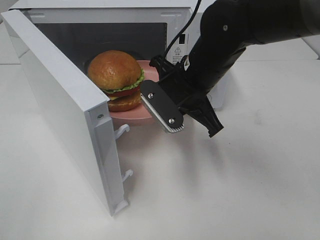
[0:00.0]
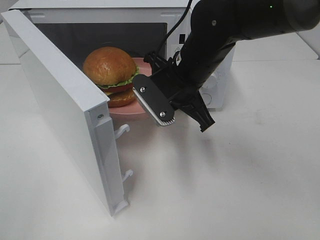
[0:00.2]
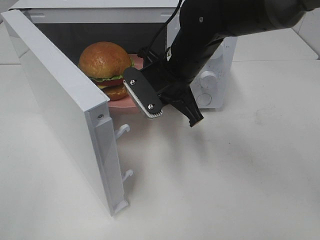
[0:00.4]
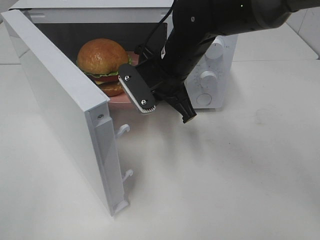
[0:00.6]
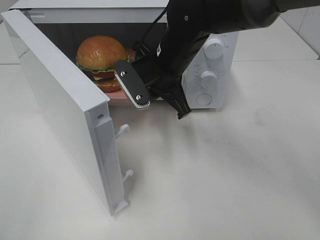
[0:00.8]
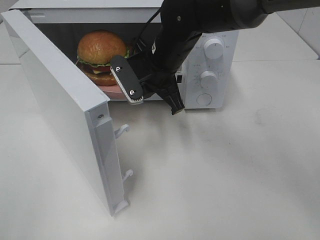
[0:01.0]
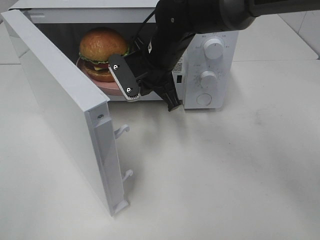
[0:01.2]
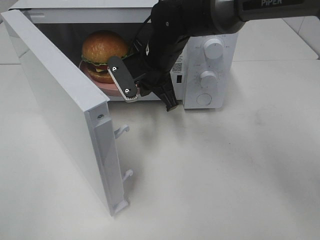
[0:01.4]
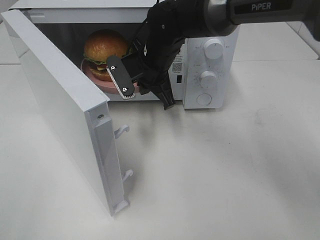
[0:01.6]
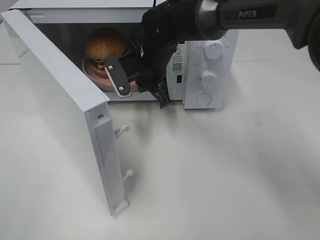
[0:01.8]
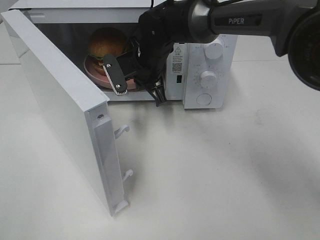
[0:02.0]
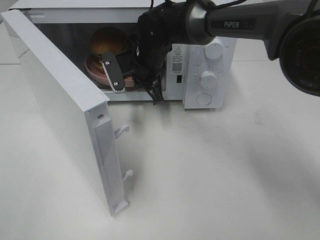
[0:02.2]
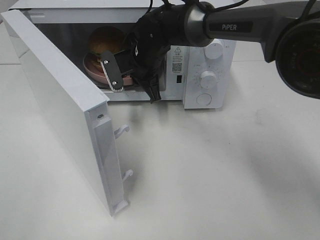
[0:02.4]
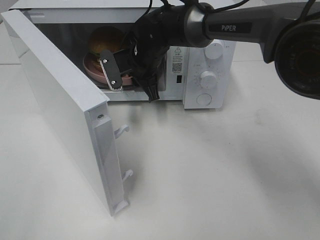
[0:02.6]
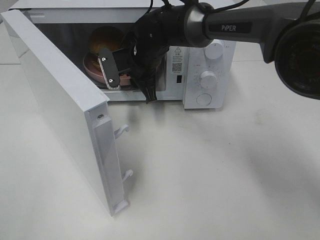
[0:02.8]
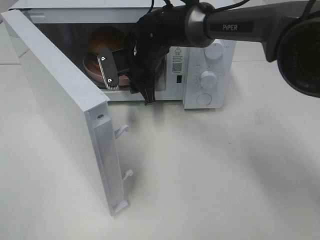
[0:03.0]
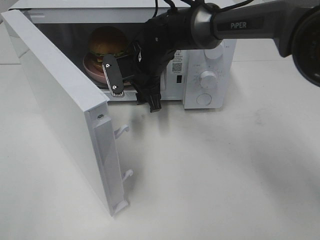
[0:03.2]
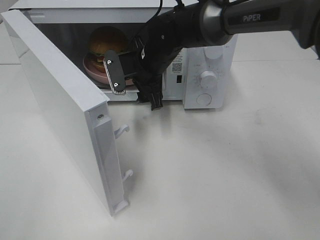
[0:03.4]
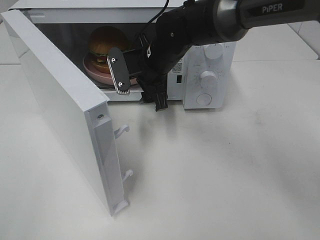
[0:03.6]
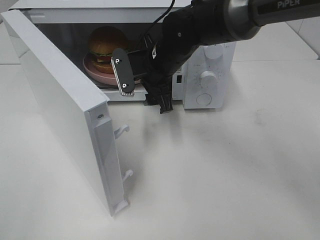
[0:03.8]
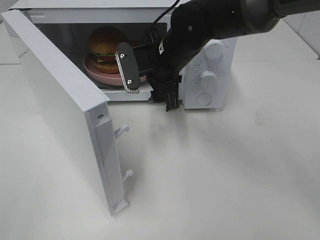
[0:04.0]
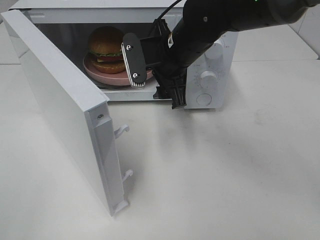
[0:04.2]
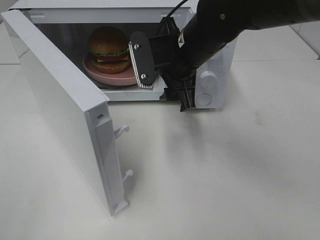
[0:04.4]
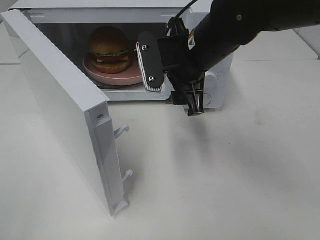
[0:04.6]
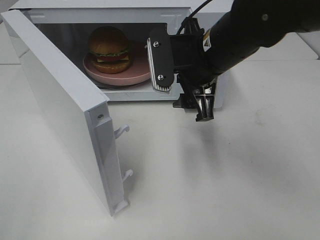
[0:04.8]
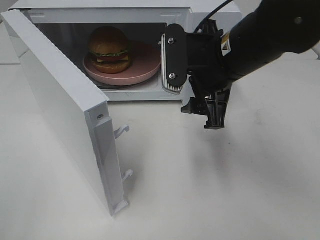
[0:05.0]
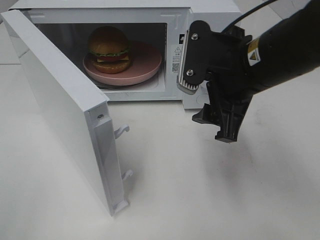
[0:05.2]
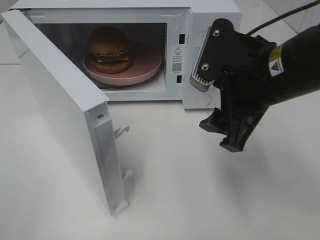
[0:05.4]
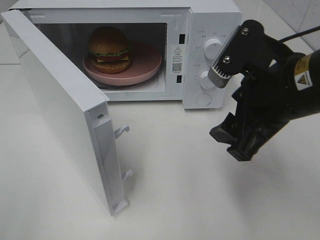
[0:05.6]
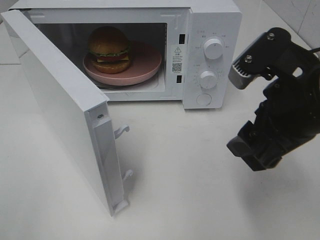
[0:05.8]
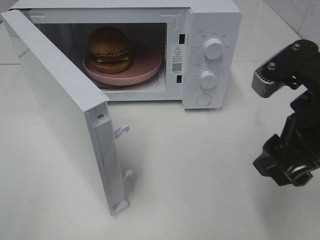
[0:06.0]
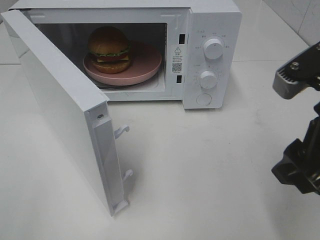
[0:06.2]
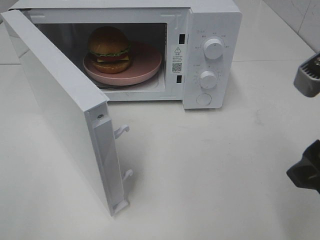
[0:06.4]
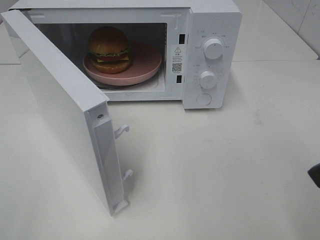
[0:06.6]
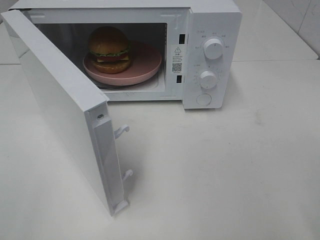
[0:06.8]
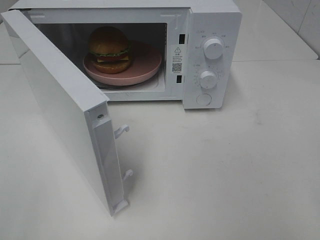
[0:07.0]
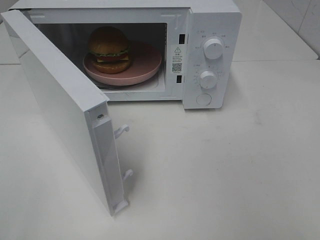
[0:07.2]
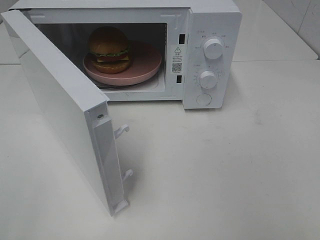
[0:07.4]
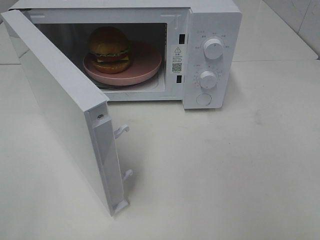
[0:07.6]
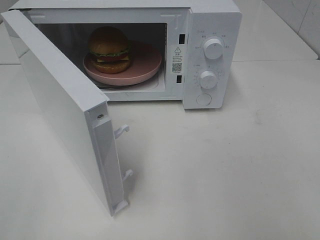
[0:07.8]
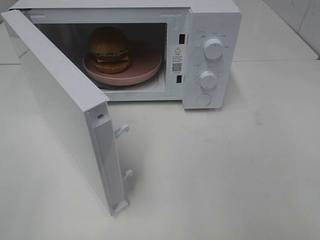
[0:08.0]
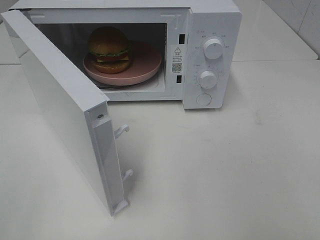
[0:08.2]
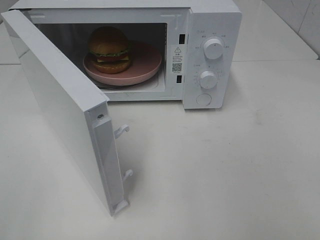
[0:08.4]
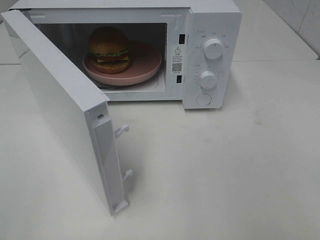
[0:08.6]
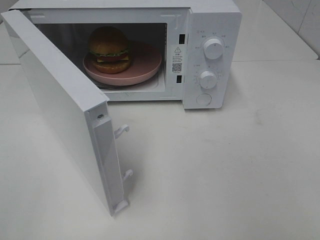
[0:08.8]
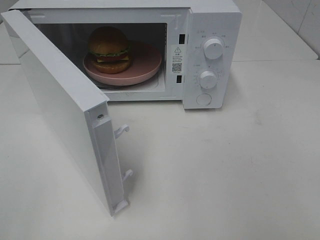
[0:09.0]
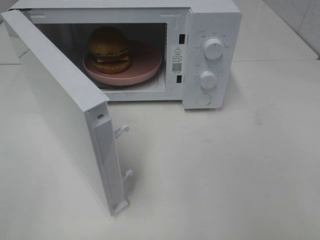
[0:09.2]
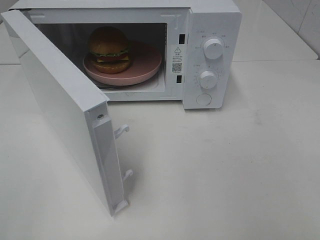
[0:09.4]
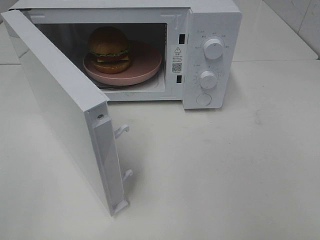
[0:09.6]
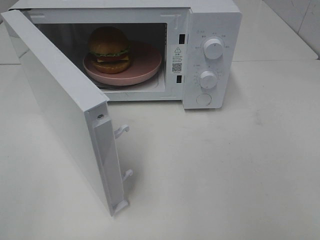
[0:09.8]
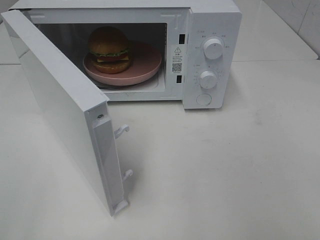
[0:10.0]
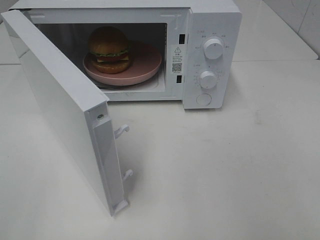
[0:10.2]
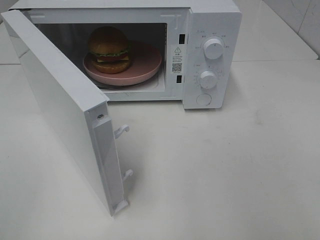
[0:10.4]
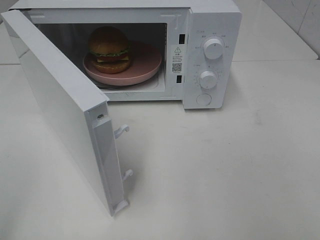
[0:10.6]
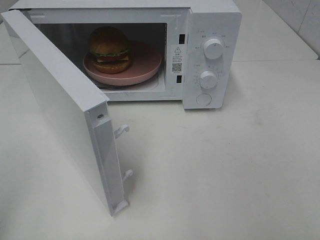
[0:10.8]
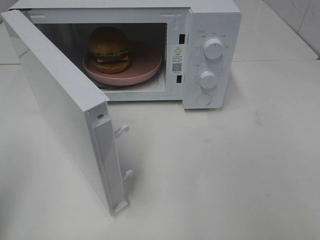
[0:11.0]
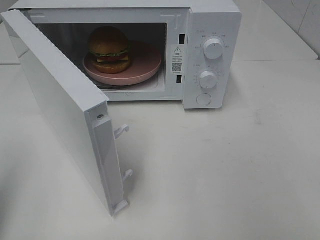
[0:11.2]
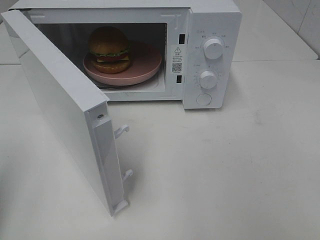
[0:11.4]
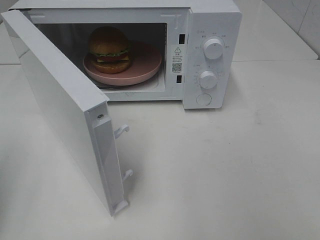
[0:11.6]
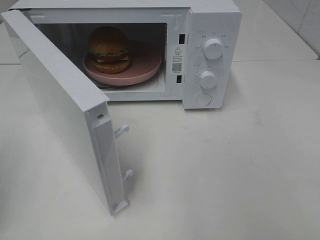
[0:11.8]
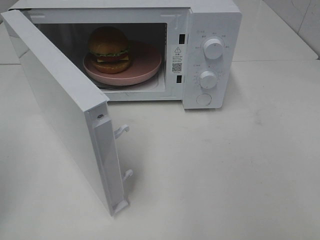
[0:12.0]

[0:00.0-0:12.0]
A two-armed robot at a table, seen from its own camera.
Task of the whole recording: Heat the burger.
Step, 0:00.0 to 0:02.6: Right hand: place the plate in the microwave.
0:00.0 to 0:01.6: The right gripper heads forward and to the left, covering about 10 cm.
0:01.6 to 0:03.0: The right gripper opens up.
0:03.0 to 0:04.4: The right gripper travels backward, to the right and upward by approximately 15 cm.
0:04.4 to 0:06.0: The right gripper moves backward and to the right, approximately 20 cm.
0:06.0 to 0:07.6: The right gripper travels backward and to the right by approximately 15 cm.

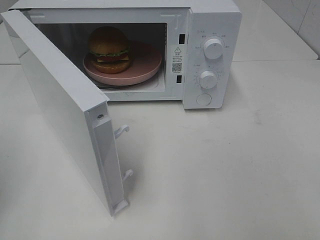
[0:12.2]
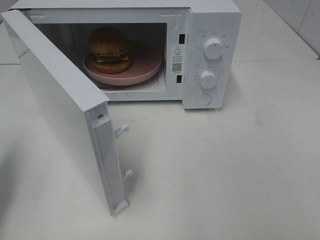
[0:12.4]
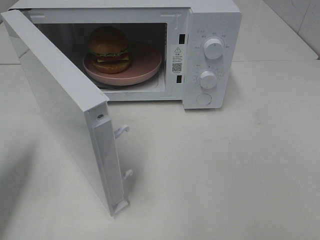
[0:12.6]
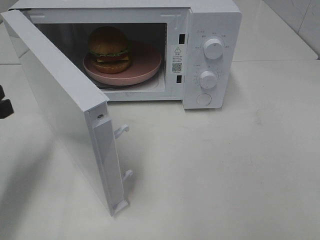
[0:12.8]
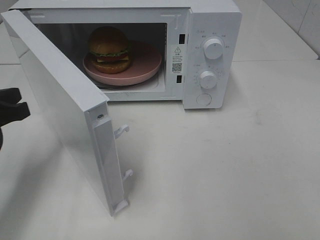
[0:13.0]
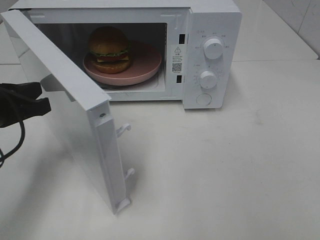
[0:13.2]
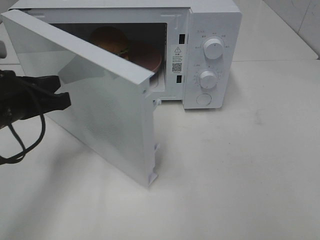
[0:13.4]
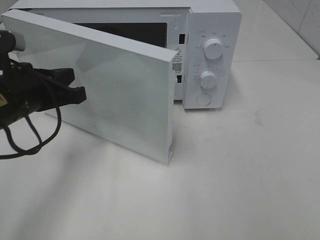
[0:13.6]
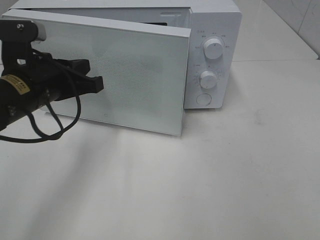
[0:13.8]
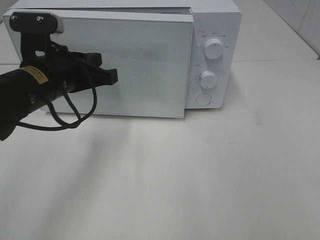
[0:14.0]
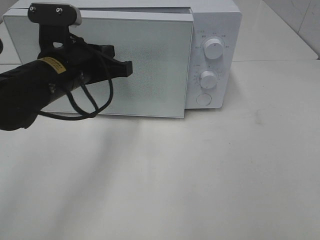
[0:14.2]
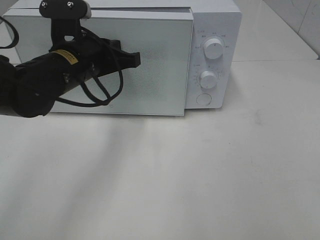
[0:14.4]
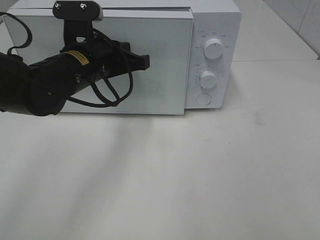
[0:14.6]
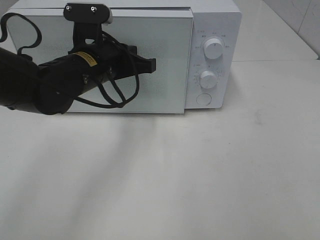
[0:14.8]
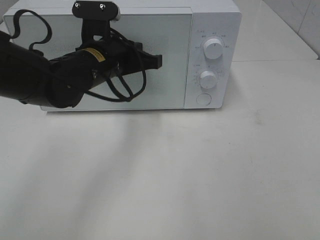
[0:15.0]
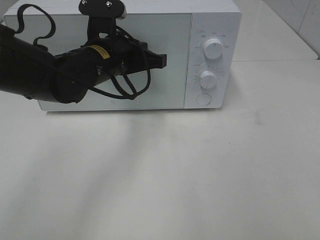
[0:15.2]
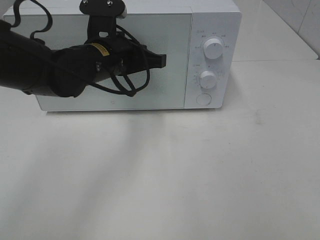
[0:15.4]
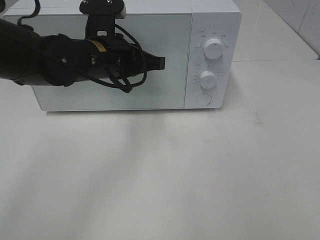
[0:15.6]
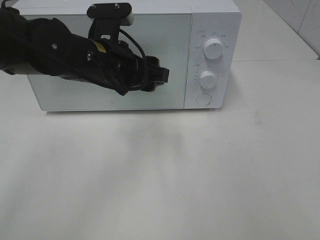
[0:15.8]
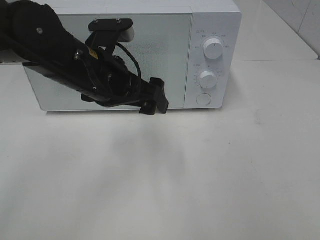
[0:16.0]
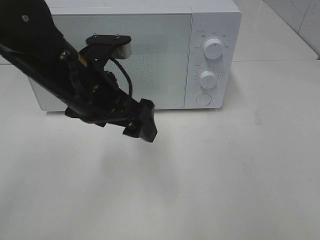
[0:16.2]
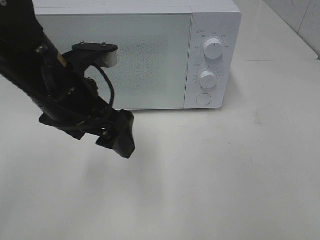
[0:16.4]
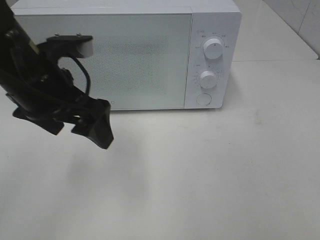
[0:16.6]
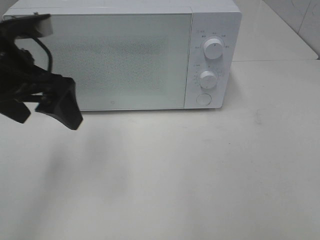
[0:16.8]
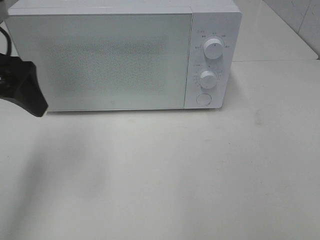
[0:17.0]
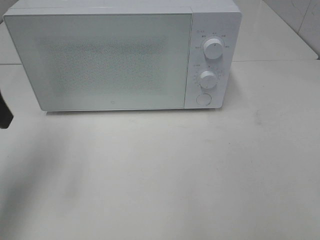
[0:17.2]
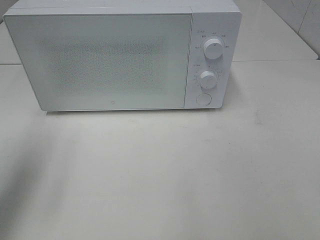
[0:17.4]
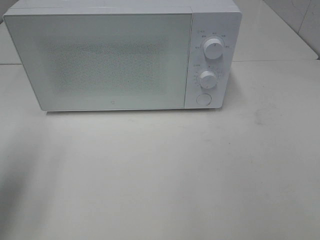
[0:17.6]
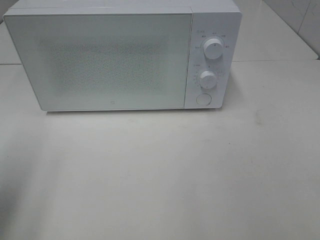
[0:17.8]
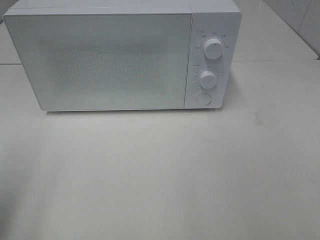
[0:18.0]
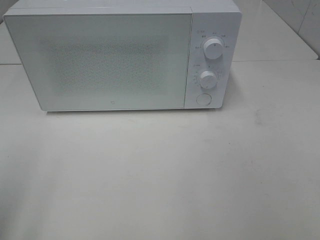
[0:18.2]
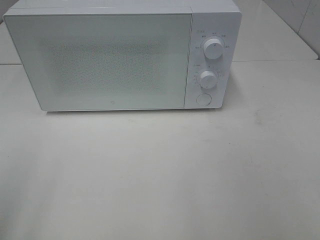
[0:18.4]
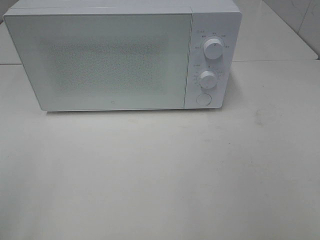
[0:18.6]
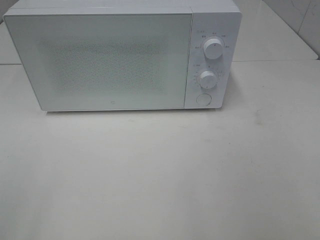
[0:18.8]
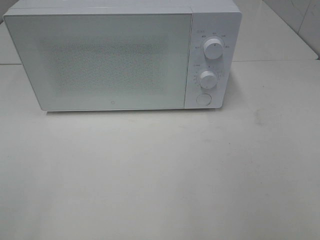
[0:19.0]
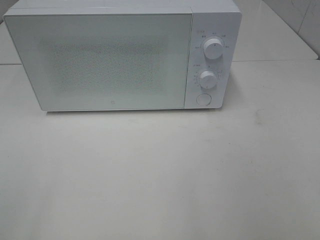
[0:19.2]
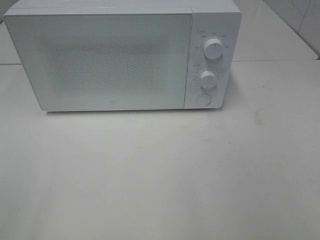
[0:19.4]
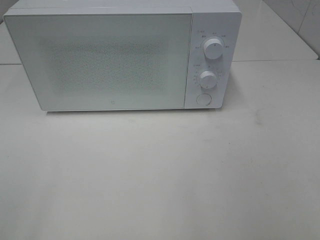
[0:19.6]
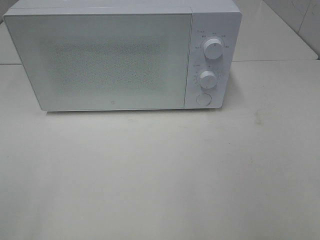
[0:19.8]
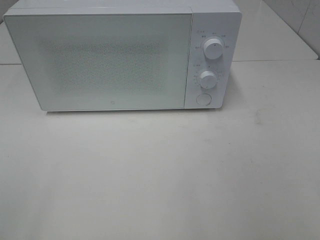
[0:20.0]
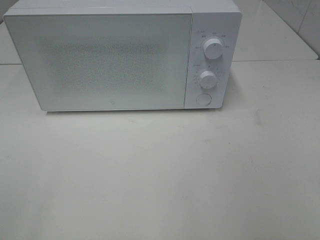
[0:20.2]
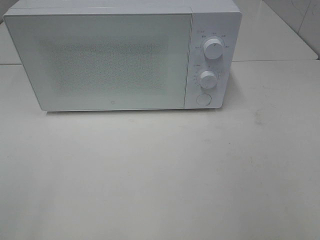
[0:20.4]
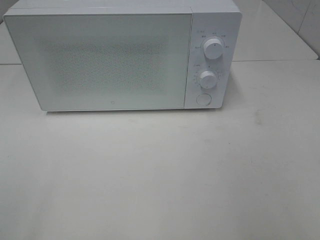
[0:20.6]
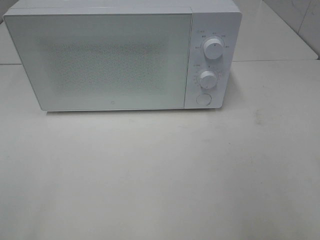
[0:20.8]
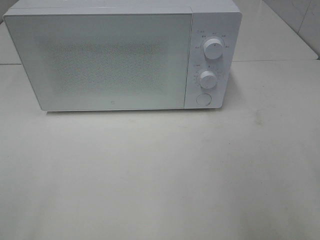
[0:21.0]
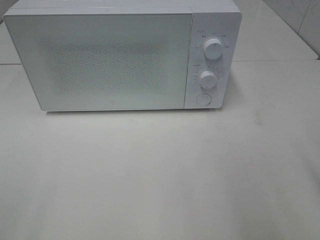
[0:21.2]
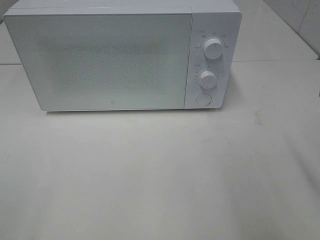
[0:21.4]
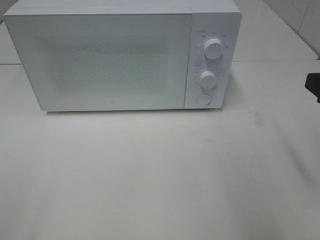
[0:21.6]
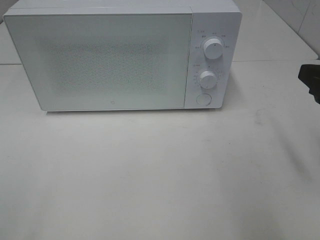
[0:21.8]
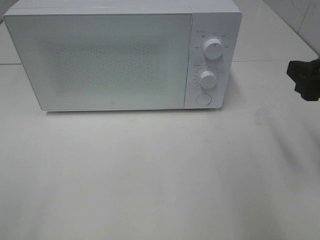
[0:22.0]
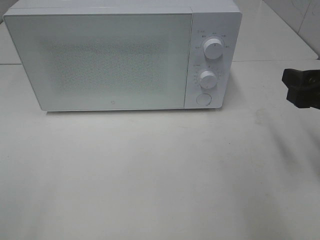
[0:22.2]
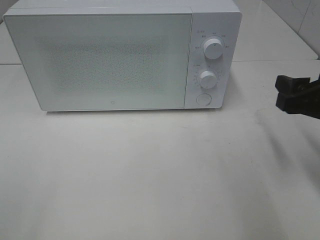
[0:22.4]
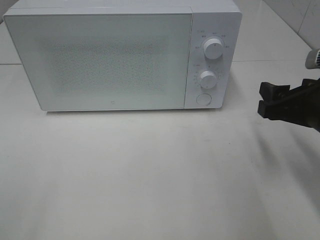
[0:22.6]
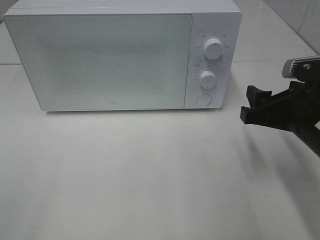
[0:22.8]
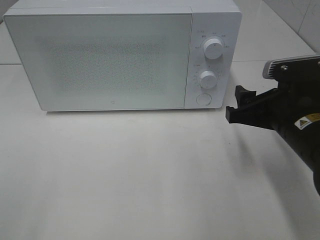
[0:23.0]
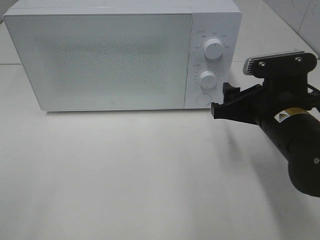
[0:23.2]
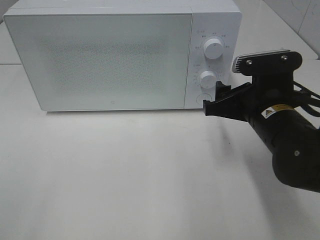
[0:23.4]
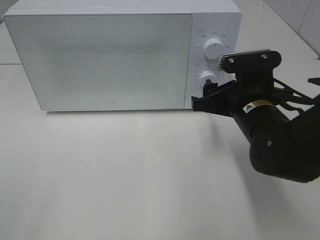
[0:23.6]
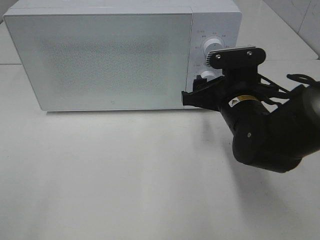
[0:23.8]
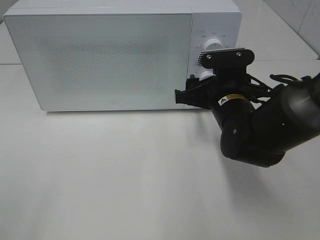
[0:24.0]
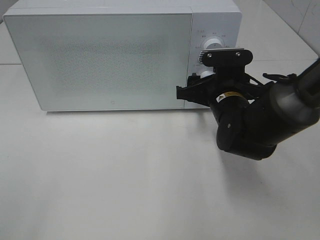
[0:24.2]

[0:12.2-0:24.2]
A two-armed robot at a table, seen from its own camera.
Task of the whole recording: Heat the burger.
Step, 0:12.2 to 0:15.6: Left hand: close the microwave door.
0:12.2 to 0:13.8: The left gripper travels to the right and forward by roughly 20 cm.
0:13.8 to 0:15.2: The left gripper heads to the right and forward, covering approximately 10 cm.
0:15.2 to 0:16.6: The left gripper moves backward, to the left and upward, approximately 15 cm, and opens.
0:16.6 to 0:18.2: The left gripper goes some 25 cm backward and to the left.
0:21.2 to 0:22.6: The right gripper is displaced forward and downward by about 15 cm.
0:22.6 to 0:24.2: The right gripper travels to the left, forward and downward by approximately 15 cm.
